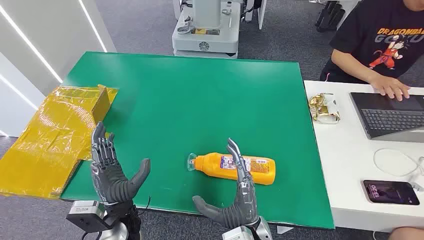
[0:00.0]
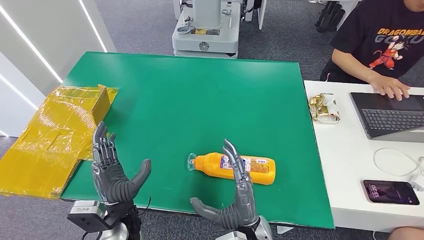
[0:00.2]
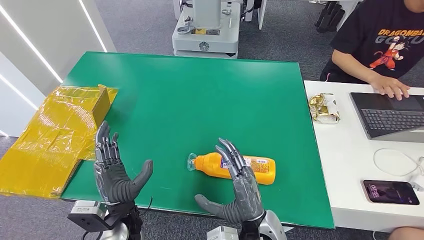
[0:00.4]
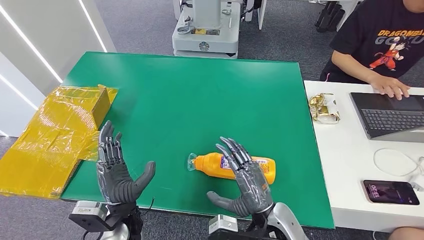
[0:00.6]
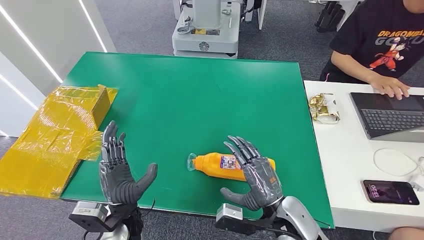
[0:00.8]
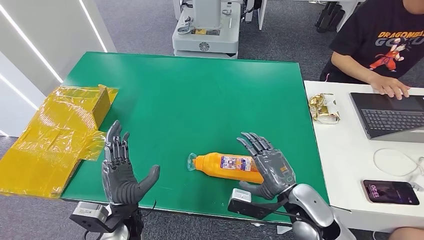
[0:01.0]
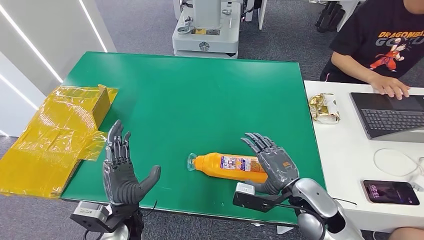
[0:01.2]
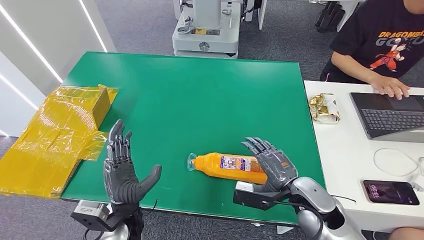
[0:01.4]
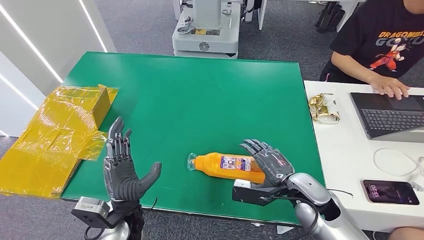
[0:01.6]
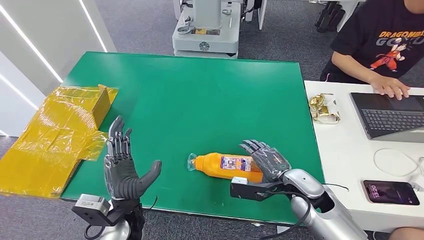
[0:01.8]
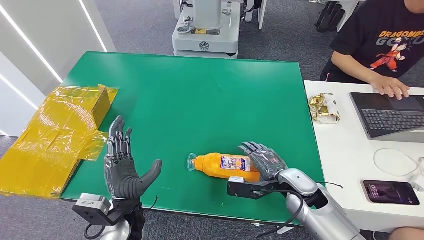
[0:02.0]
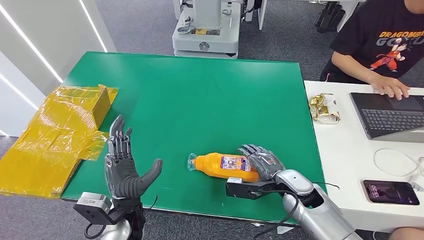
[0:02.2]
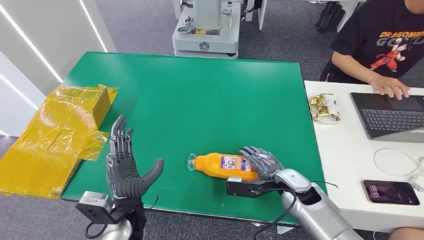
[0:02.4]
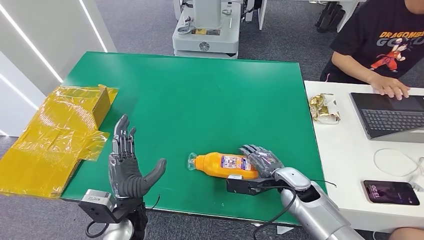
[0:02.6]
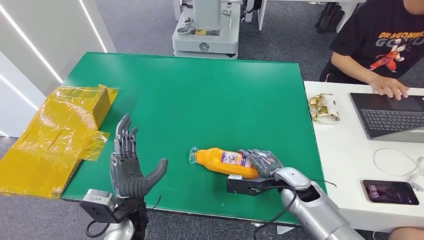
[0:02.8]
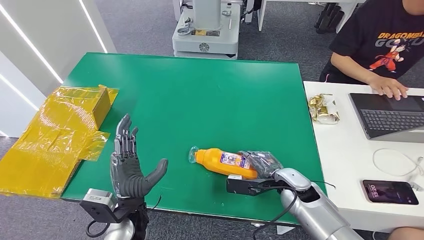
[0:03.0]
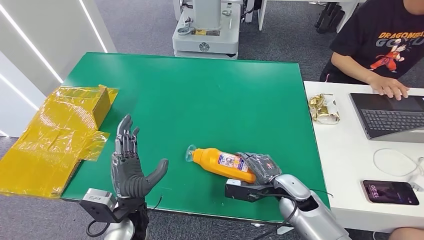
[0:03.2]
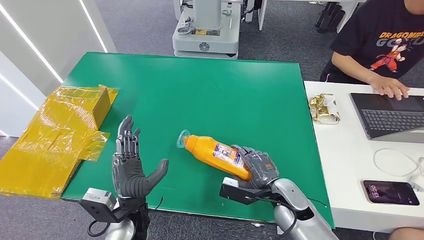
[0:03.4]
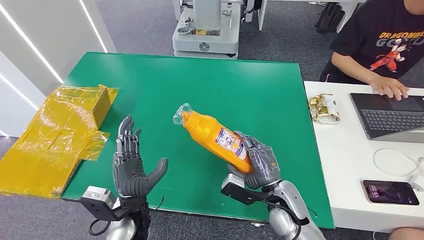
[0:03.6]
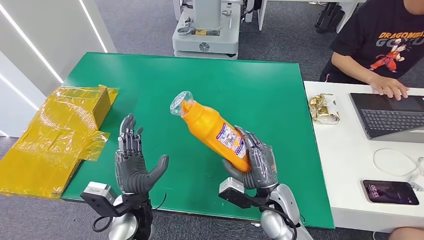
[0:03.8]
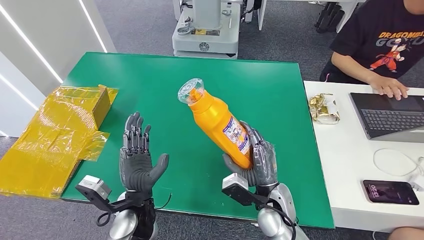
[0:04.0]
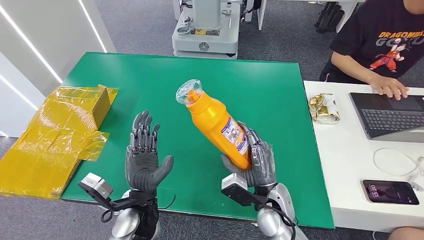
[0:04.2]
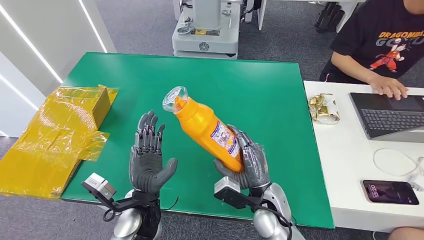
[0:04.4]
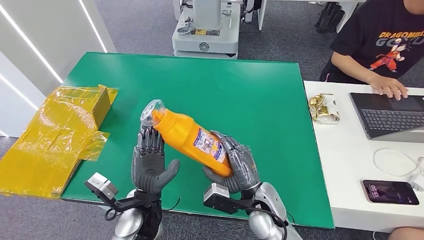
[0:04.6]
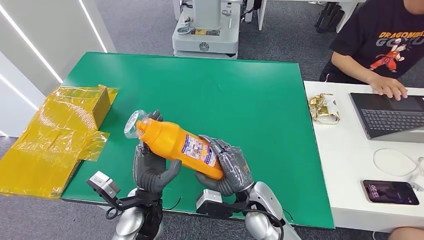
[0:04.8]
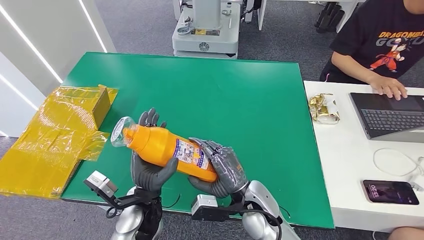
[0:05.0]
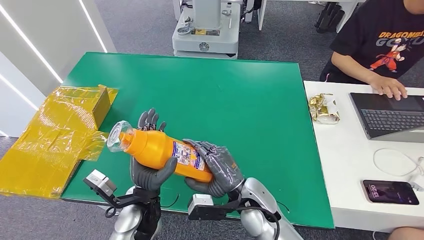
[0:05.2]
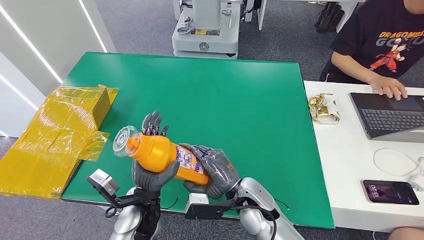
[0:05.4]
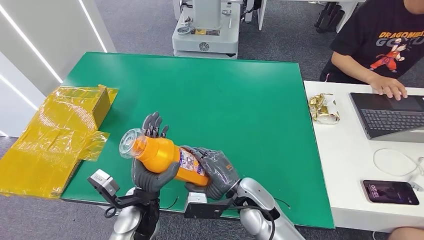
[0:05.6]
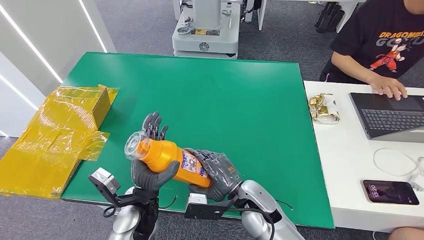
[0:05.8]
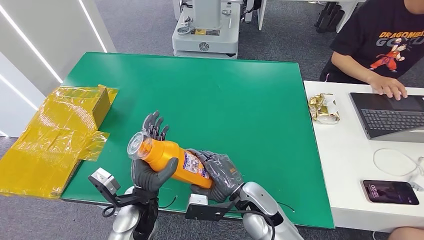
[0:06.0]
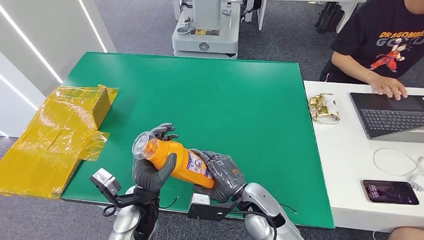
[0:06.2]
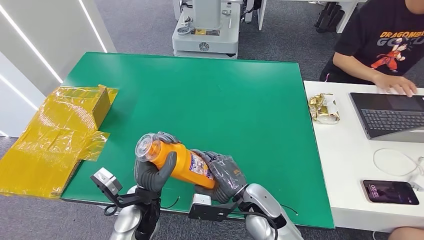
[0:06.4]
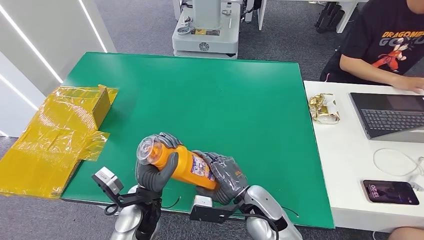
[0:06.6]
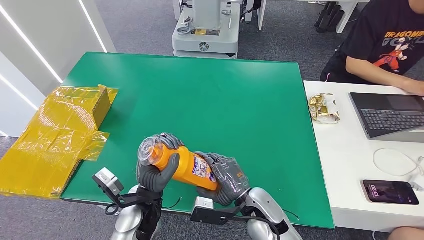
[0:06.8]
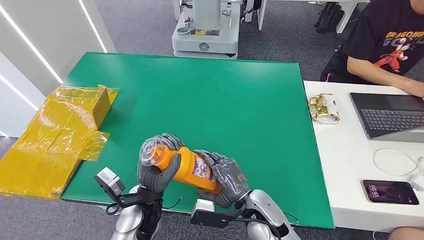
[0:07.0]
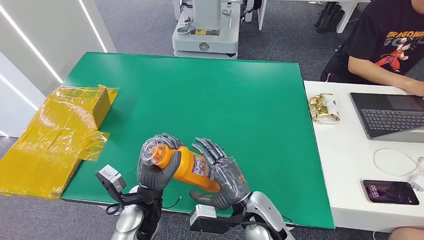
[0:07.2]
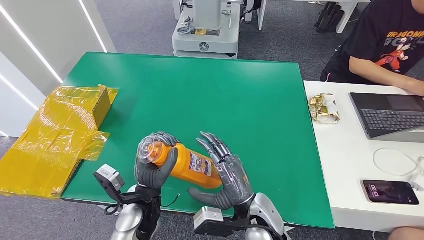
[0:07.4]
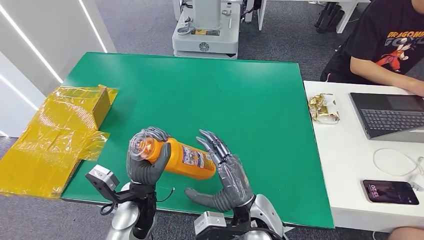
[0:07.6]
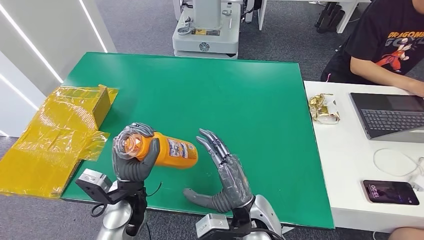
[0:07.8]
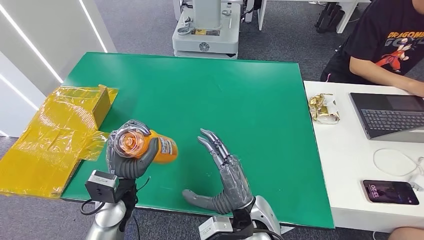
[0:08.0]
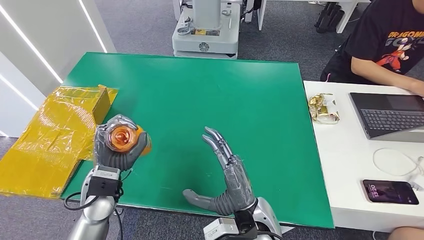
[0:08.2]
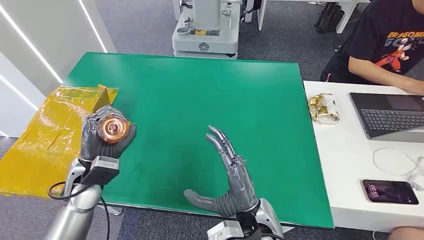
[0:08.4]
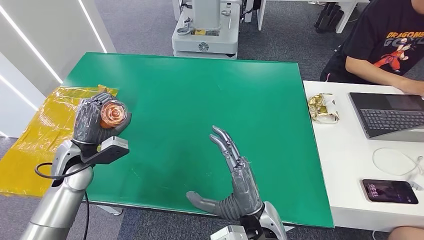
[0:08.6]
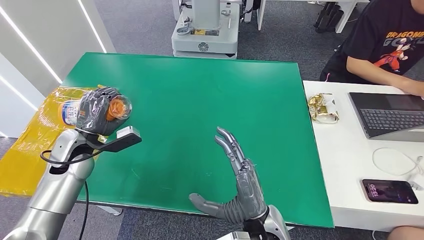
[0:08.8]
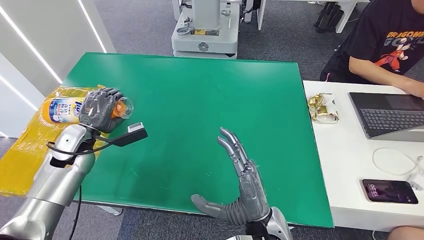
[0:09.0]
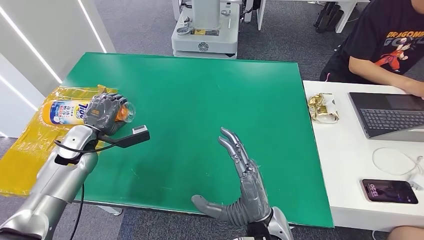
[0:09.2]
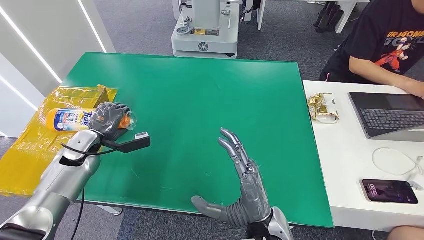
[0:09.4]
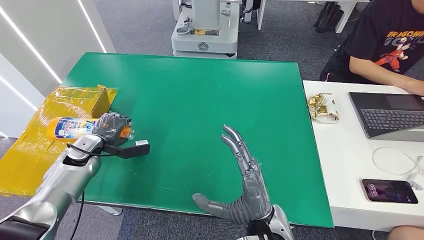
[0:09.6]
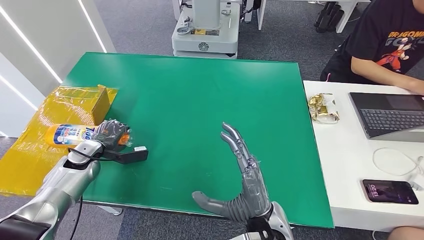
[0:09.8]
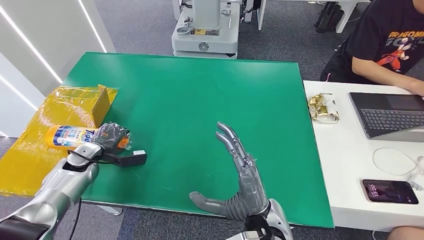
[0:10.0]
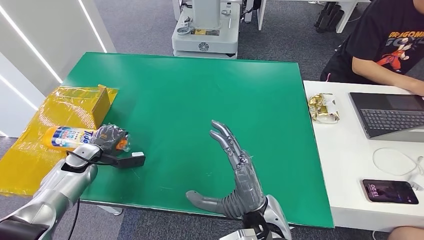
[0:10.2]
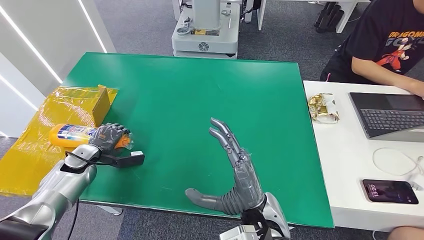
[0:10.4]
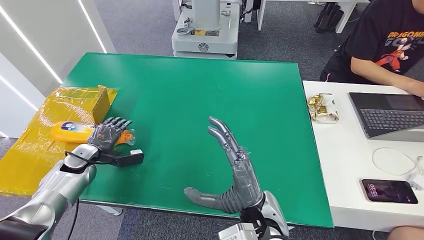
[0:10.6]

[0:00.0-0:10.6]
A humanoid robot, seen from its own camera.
Step, 0:00.0 to 0:03.4: Pick up the bottle from the table.
0:01.6 to 0:03.0: The right hand is displaced downward by roughly 5 cm.
0:03.0 to 0:04.6: The right hand goes roughly 10 cm to the left and backward.
0:07.6 to 0:09.0: The left hand is displaced to the left and forward by some 25 cm.
0:09.0 to 0:10.6: The left hand moves downward and to the left, about 10 cm.

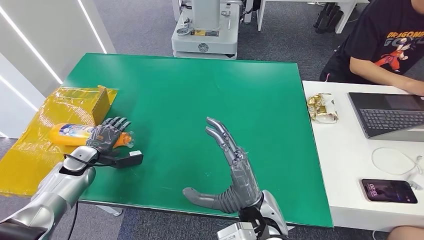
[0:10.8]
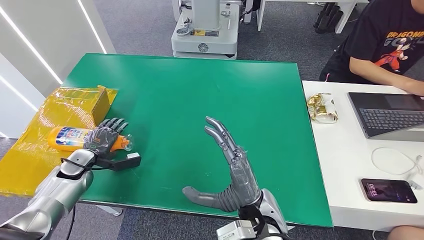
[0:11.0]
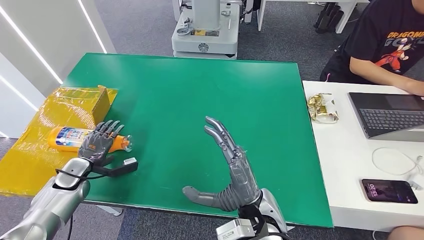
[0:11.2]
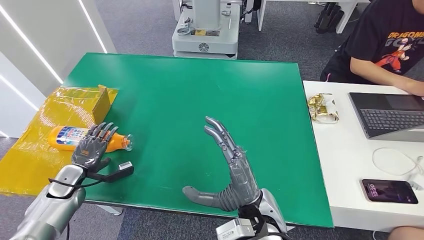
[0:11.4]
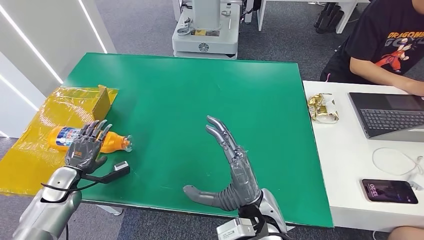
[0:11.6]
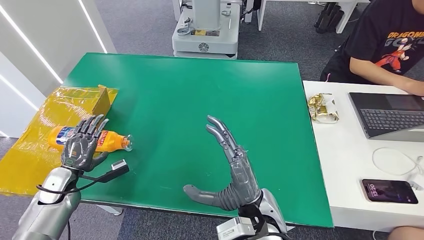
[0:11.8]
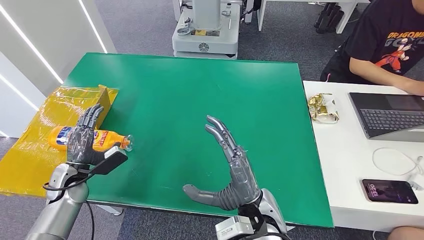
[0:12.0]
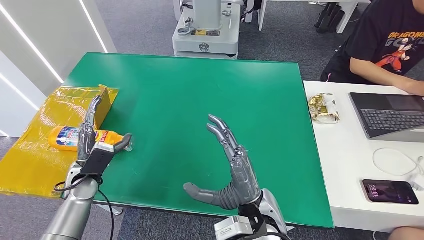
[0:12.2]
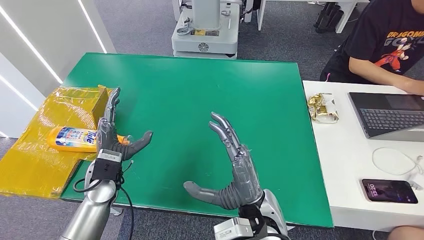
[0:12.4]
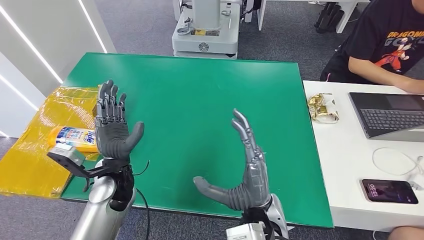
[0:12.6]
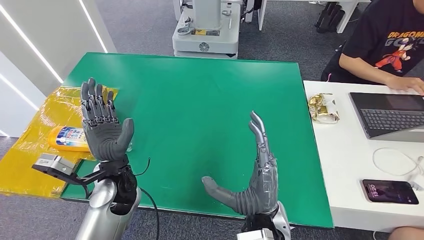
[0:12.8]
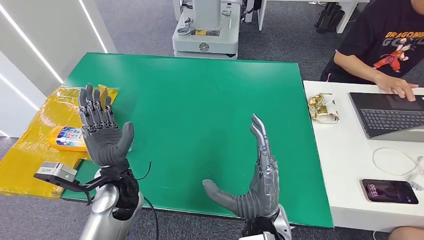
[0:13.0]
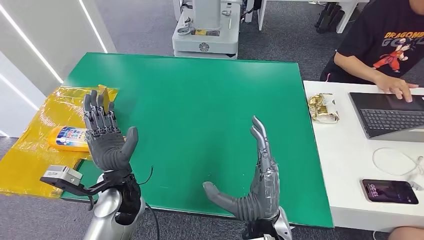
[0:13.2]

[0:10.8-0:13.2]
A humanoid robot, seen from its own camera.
Step, 0:10.8 to 0:13.0: Turn the bottle to the front side.
0:10.8 to 0:12.0: The left hand moves backward, some 5 cm.
0:12.0 to 0:13.2: The left hand travels to the right and upward by roughly 20 cm.
